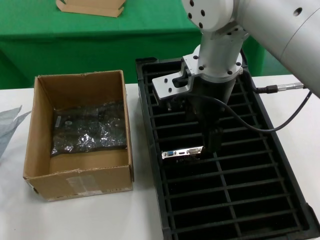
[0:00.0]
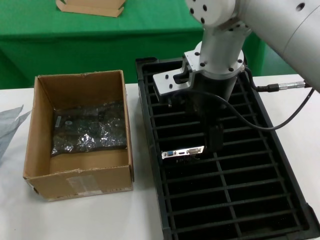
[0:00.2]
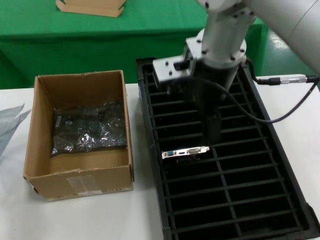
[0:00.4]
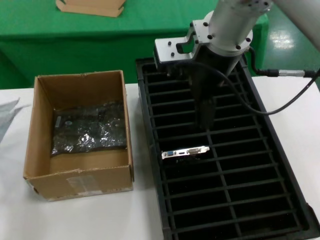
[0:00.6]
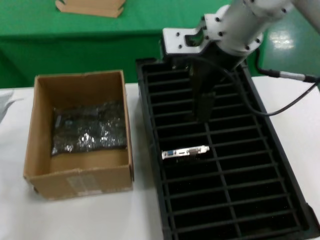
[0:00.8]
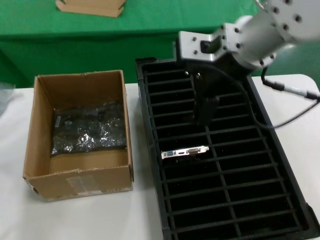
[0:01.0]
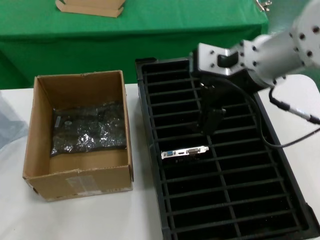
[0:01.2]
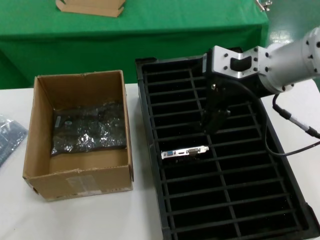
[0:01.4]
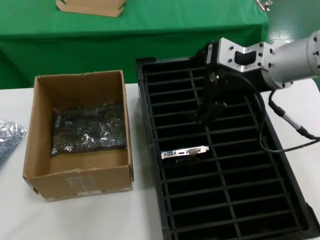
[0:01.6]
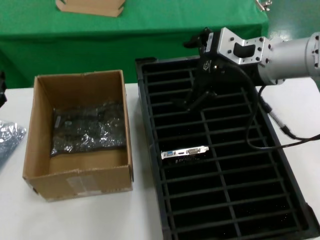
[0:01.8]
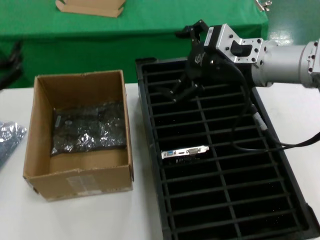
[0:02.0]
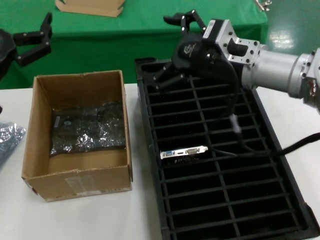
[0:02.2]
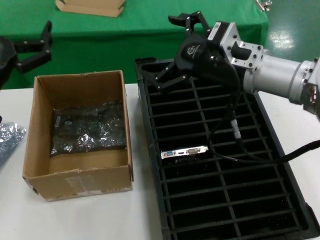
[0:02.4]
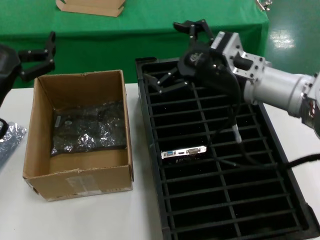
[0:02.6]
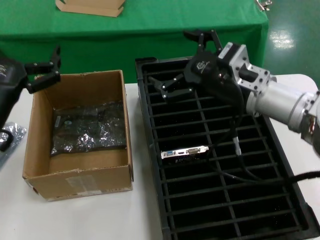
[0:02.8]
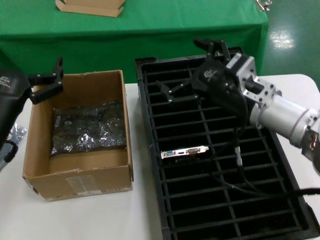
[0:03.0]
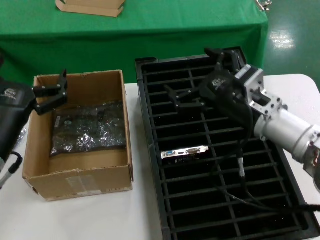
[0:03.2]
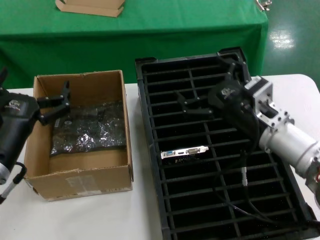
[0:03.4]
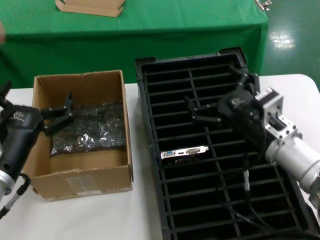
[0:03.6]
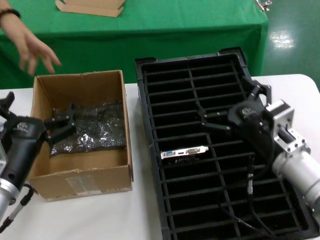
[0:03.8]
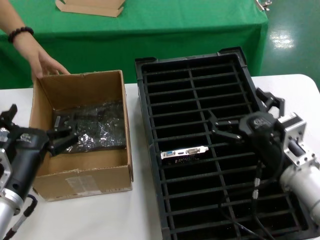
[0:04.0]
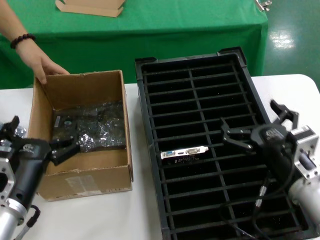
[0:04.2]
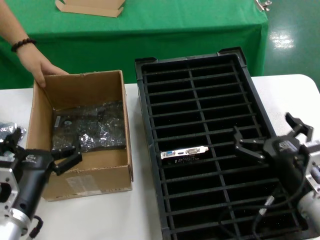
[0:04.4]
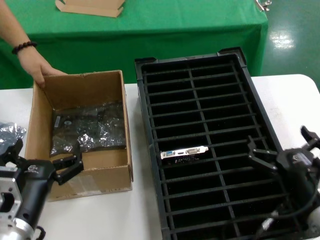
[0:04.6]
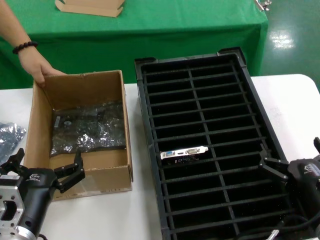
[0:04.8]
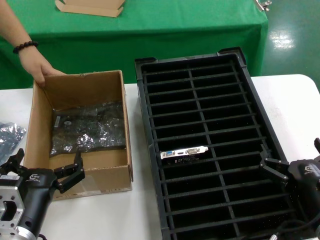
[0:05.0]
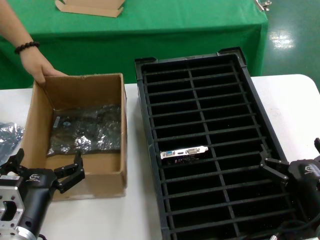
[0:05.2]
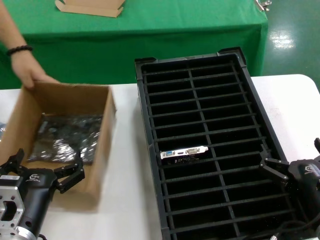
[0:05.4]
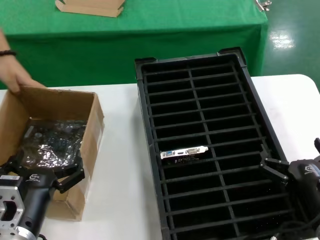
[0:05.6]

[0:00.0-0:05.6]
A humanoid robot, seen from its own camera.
Task of the whole recording: take out graphics card from box remove packaging put into black container.
Step, 0:00.0 to 0:01.8: Place the down the bag.
0:00.0 to 0:01.4: The left hand shifts some 10 cm upward. Meanwhile the right hand travels to the right by approximately 10 cm.
0:01.4 to 0:02.8: The left hand shifts roughly 20 cm to the right and upward, while the right hand shifts some 10 cm downward.
0:02.8 to 0:04.2: The left hand shifts approximately 10 cm downward. Meanwhile the right hand shifts roughly 20 cm downward and backward.
0:04.2 to 0:05.6: The right hand goes some 5 cm backward; the left hand moves approximately 5 cm.
